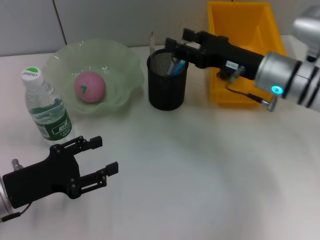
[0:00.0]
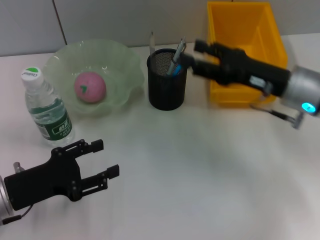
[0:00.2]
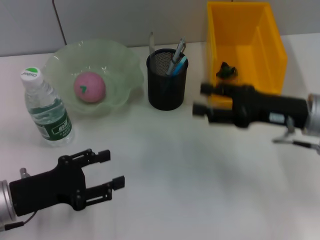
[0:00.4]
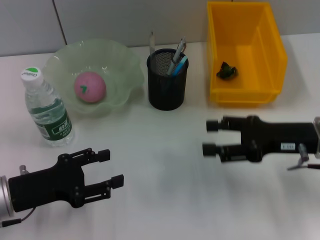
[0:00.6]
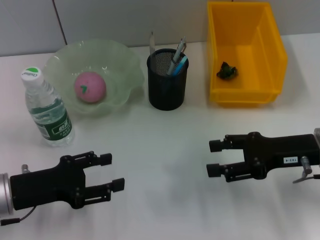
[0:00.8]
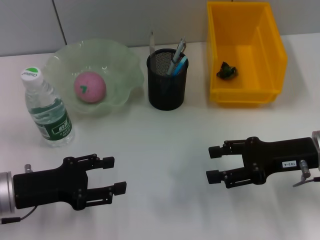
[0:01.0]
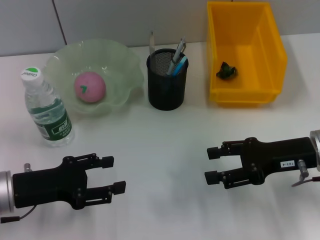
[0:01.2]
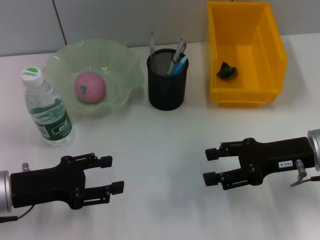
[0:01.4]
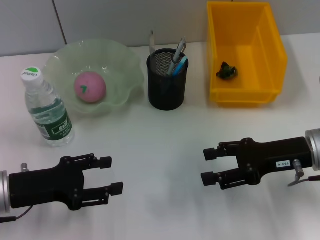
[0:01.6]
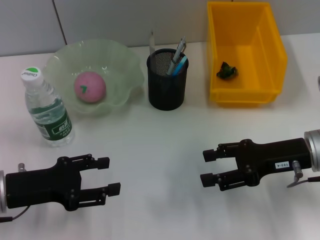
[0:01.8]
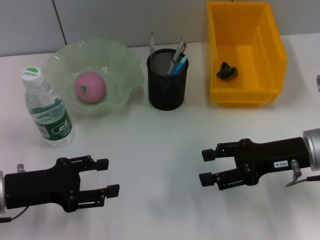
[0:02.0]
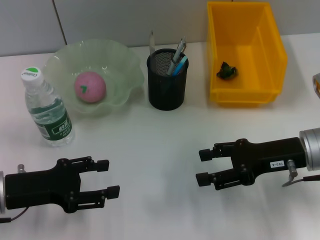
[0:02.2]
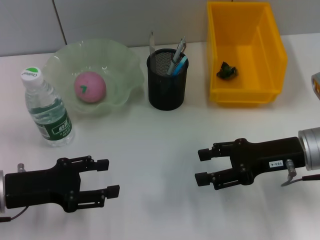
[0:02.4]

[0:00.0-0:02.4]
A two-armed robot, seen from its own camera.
0:00.0 to 0:01.2: The right gripper is displaced backward and to the right by some 10 cm.
0:01.2 to 0:02.4: The grippers move only a little.

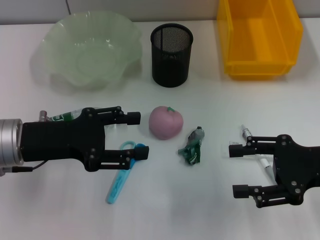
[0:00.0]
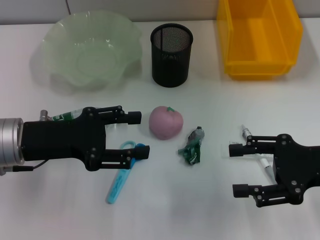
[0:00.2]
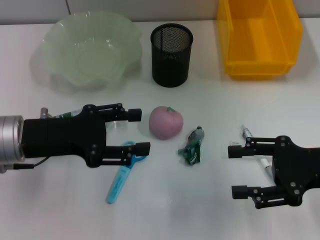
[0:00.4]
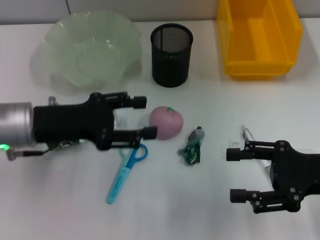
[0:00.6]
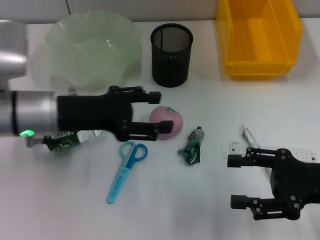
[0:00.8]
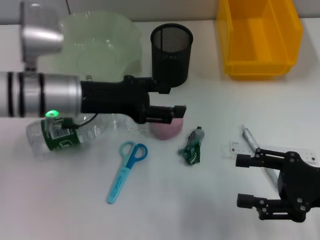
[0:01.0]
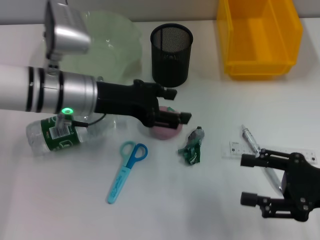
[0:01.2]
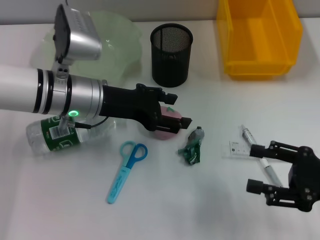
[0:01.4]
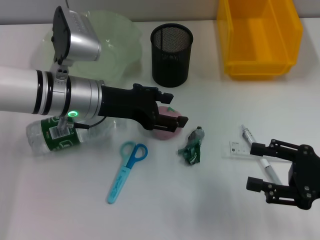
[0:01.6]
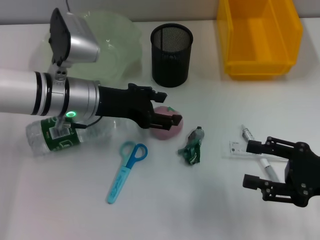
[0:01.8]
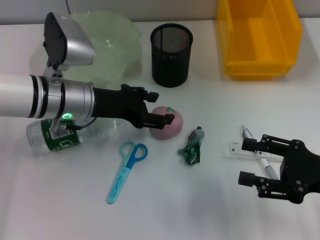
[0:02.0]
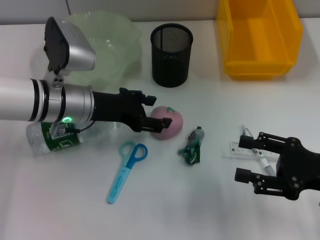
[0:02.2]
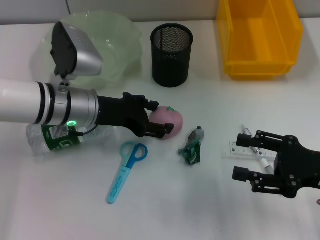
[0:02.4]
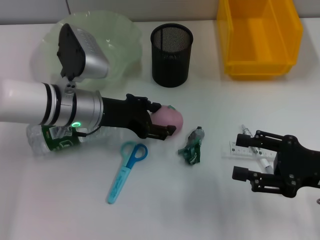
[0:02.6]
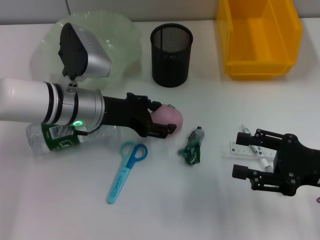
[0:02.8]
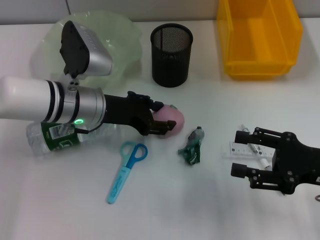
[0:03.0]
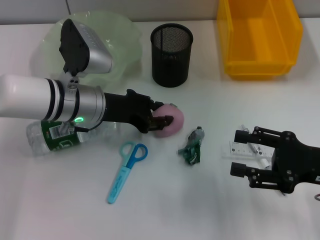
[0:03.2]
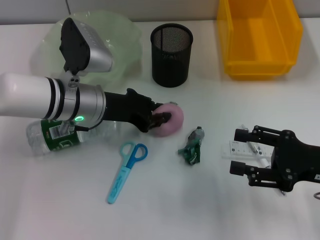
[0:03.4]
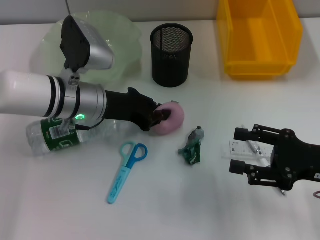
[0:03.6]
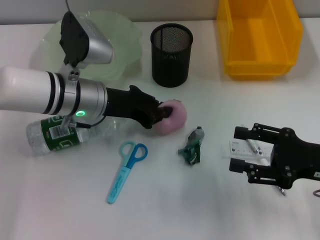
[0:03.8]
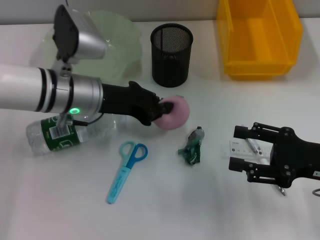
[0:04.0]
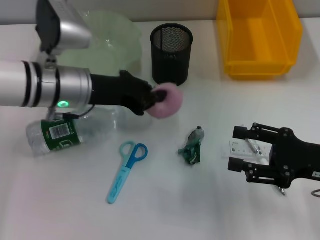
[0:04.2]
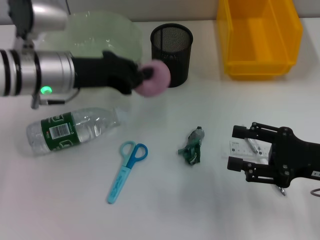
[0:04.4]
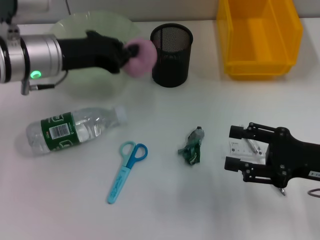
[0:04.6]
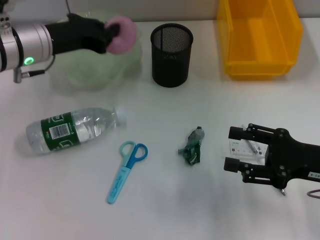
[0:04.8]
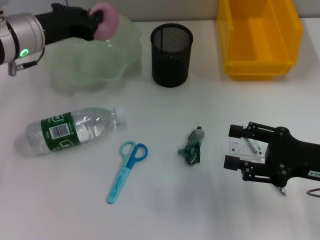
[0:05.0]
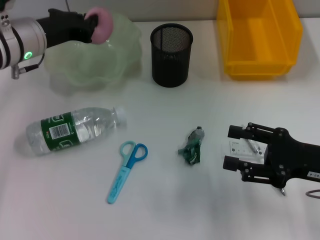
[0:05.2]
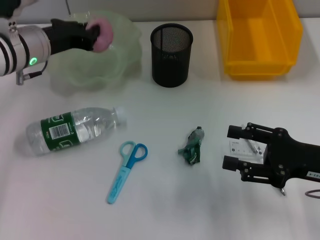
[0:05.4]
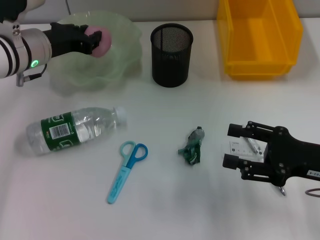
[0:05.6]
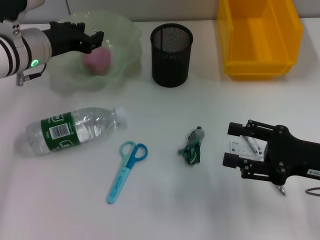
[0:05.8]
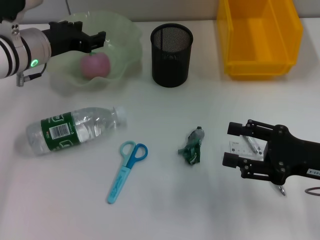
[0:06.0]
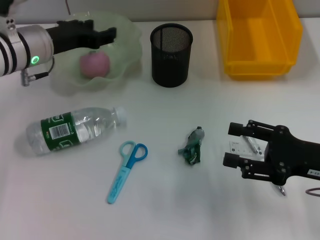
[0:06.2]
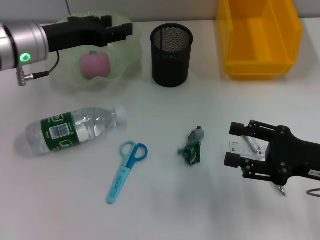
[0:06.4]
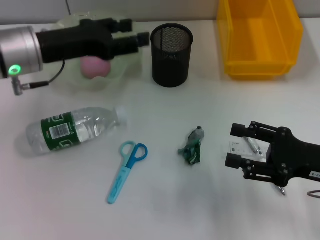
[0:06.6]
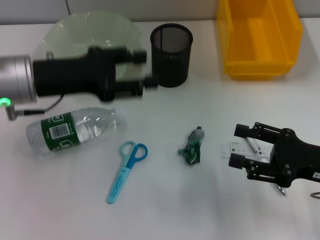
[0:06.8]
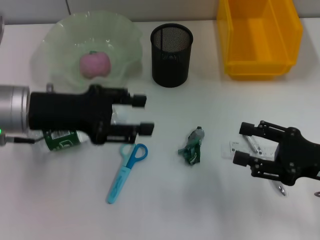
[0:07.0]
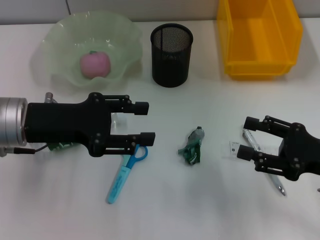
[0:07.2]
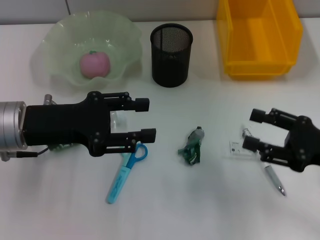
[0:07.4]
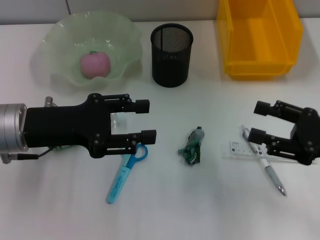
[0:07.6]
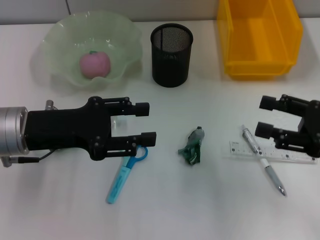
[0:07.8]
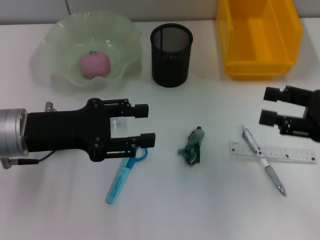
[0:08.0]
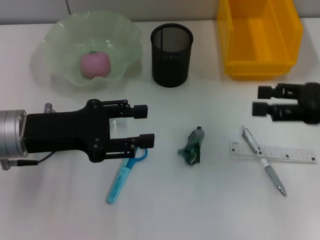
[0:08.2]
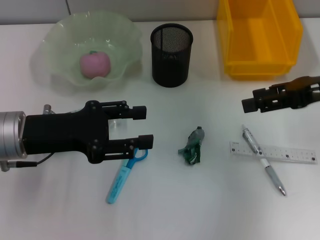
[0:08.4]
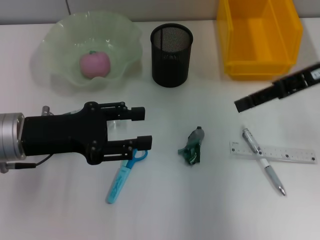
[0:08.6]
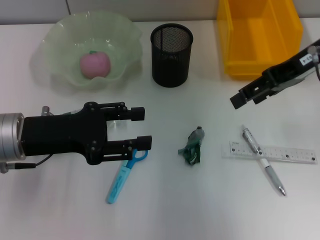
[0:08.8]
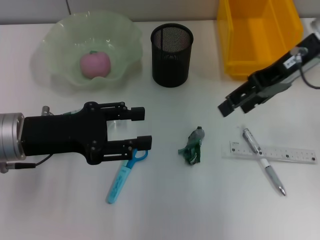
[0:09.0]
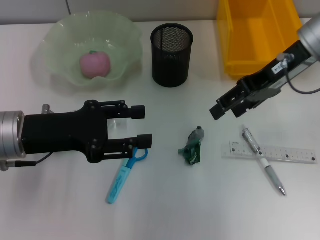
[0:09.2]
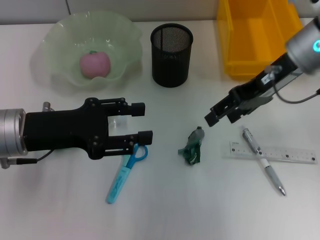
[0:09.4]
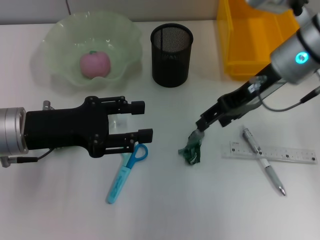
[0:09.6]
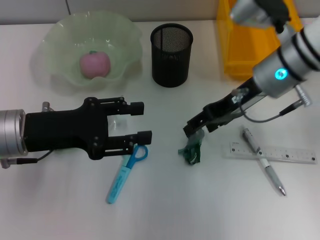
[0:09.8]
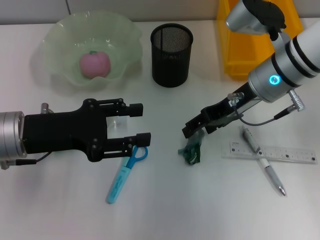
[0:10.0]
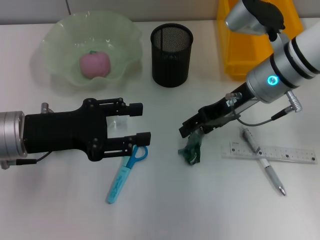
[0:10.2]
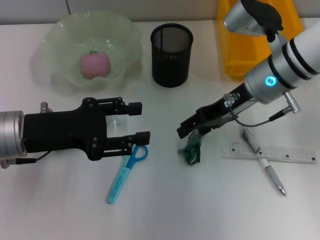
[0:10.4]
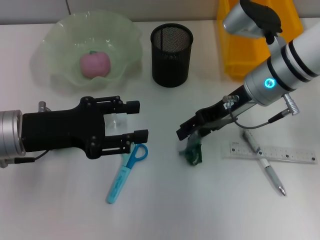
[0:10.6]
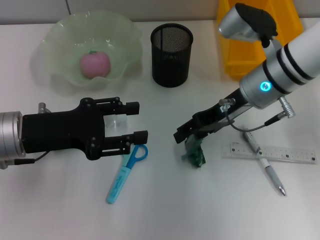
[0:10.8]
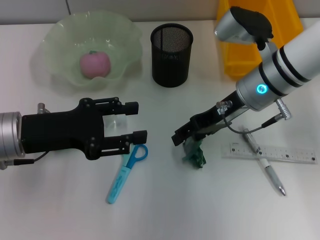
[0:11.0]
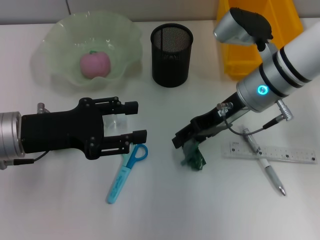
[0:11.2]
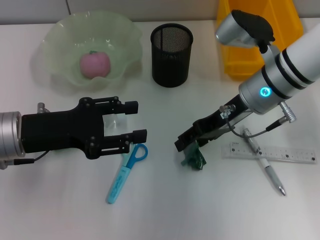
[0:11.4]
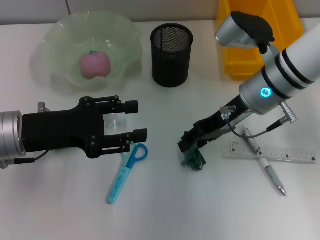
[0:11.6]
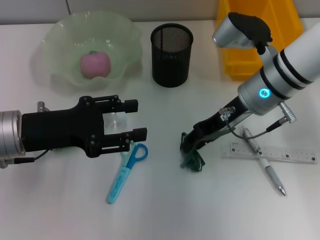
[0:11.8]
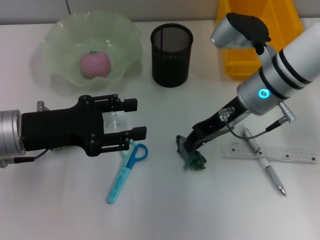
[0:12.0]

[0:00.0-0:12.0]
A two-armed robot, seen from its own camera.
Step, 0:00.0 to 0:03.6: Grab the peach with the left hand.
Step, 0:03.8 to 0:06.0: Place the peach into the fruit bowl with the left hand.
0:00.0 to 0:01.6: The left gripper moves to the right and forward, some 10 cm, while the right gripper ends up approximately 5 cm from where it was.
0:01.6 to 0:03.0: The grippers stay close to where they were, moving slightly.
0:03.0 to 0:04.4: The left gripper is displaced upward by approximately 5 cm, and closes up.
0:04.4 to 0:06.0: The left gripper shifts roughly 5 cm forward, and opens up.
0:06.0 to 0:07.6: The left gripper shifts roughly 15 cm backward.
0:07.6 to 0:09.0: The right gripper shifts about 20 cm forward, upward and to the left.
0:09.0 to 0:10.4: The right gripper shifts some 10 cm downward and to the left.
0:10.4 to 0:12.0: The right gripper closes.

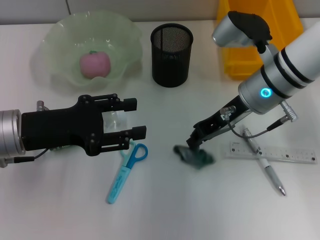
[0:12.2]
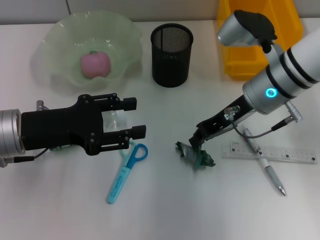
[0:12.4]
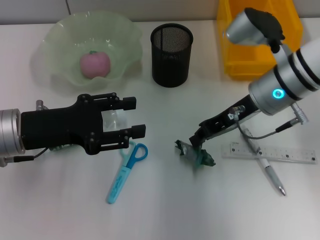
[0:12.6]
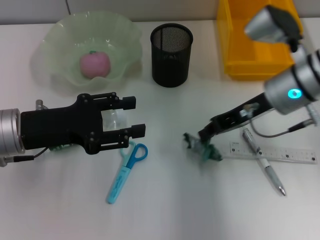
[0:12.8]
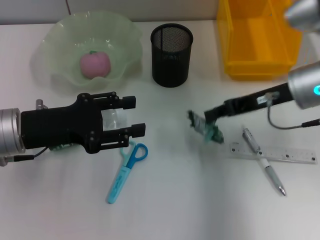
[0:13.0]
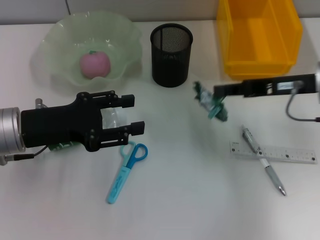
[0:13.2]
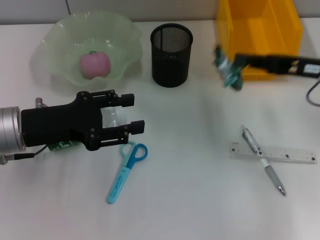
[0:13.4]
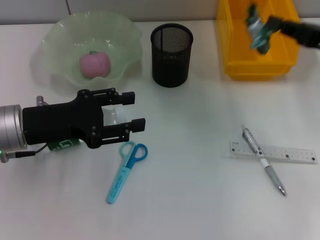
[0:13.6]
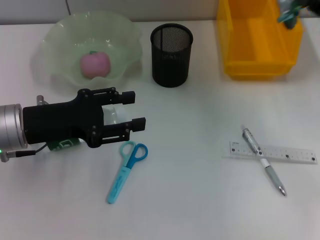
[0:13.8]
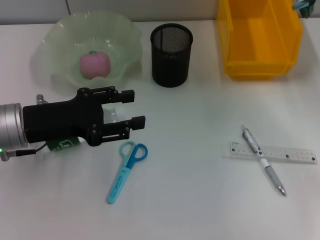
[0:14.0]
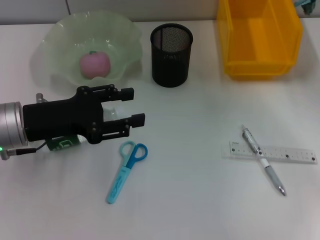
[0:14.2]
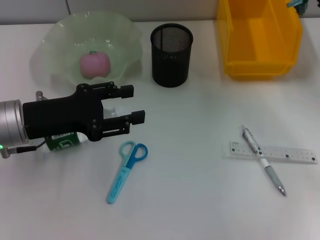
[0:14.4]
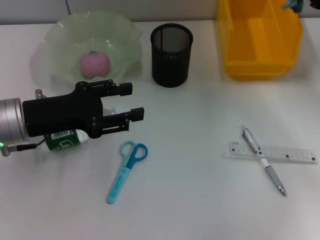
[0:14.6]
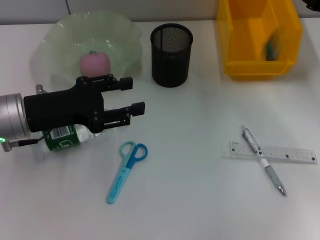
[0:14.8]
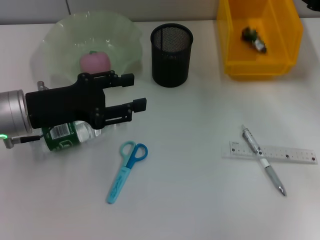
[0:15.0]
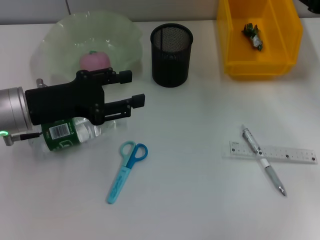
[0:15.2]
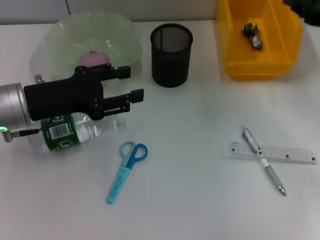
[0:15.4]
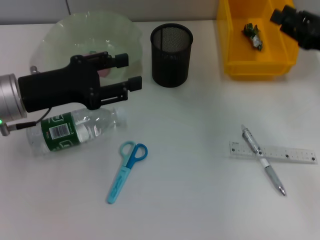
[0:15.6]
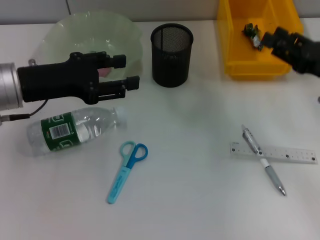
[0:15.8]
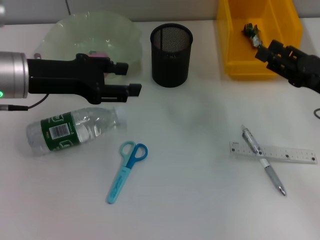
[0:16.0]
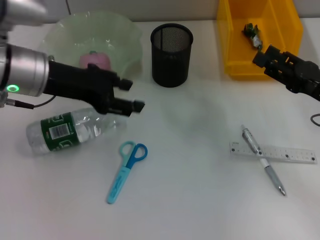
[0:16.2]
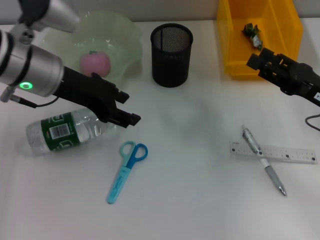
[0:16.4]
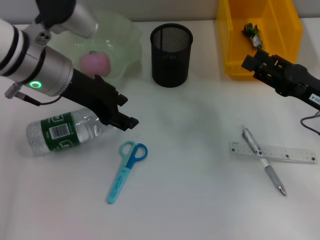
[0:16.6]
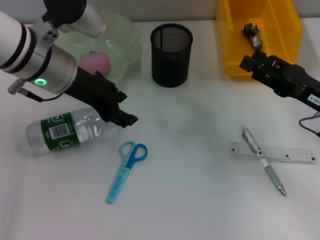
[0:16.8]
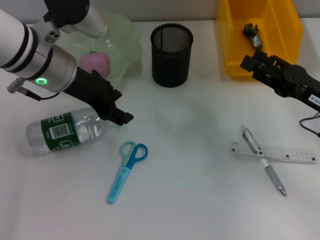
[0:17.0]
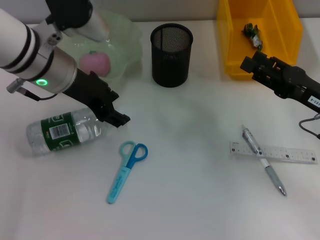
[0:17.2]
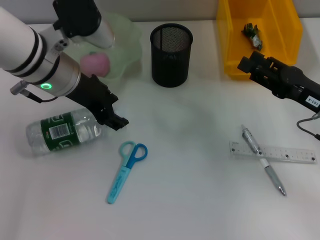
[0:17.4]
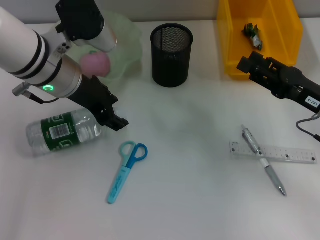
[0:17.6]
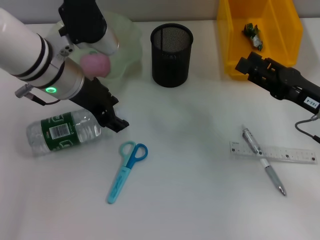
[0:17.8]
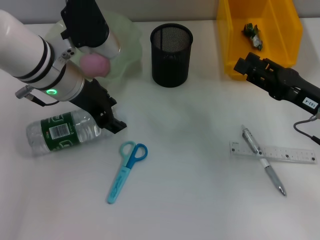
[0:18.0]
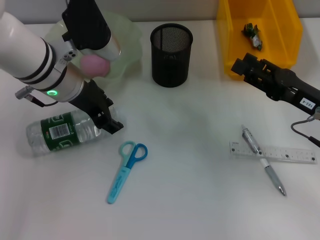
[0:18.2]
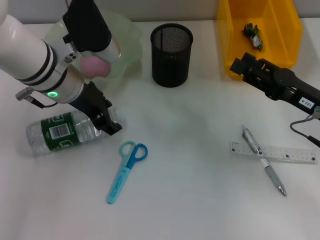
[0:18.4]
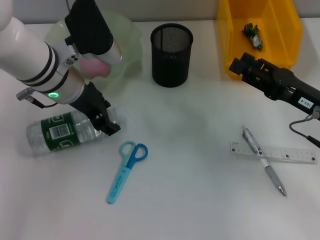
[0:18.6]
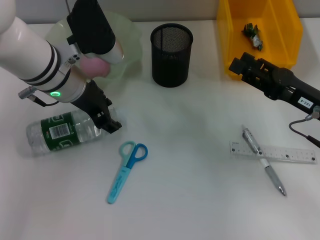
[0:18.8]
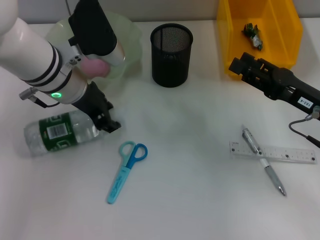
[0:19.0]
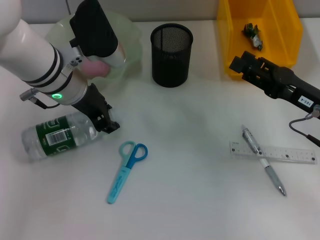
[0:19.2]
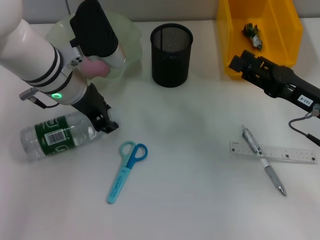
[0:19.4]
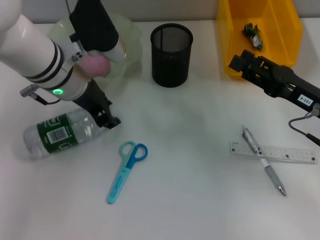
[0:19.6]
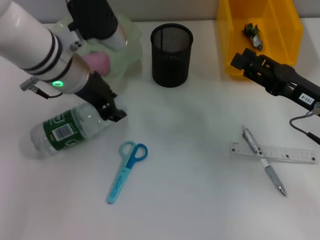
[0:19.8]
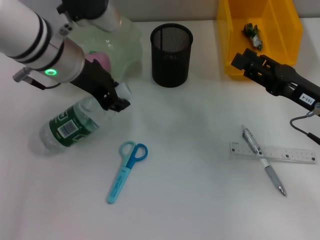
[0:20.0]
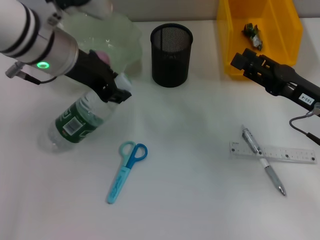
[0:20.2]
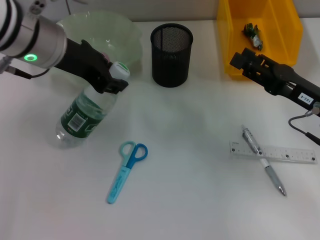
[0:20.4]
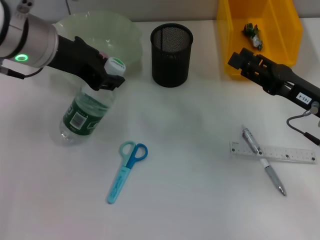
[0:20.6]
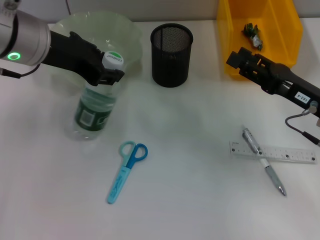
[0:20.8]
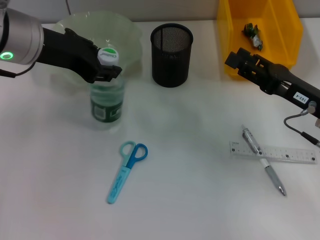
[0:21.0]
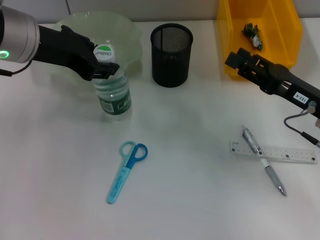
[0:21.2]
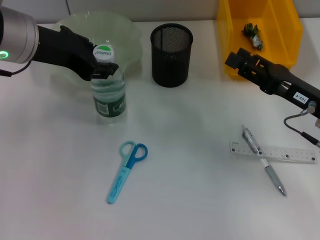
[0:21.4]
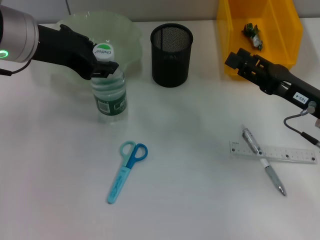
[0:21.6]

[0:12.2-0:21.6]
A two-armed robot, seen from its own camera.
Step, 0:12.6 to 0:15.0: Place the plastic into the trash can with the right hand.
Step, 0:15.2 to 0:19.4: Grab the water bottle with the left hand.
0:12.2 to 0:13.8: The right gripper moves to the right, some 20 cm.
0:13.8 to 0:15.4: The right gripper opens.
0:15.4 to 0:17.0: The right gripper travels backward and downward by about 10 cm, and opens; the left gripper goes about 10 cm to the right, forward and upward.
0:17.0 to 0:20.0: The grippers stay close to where they were, moving slightly.
0:20.0 to 0:21.6: The left gripper changes place by about 5 cm.
